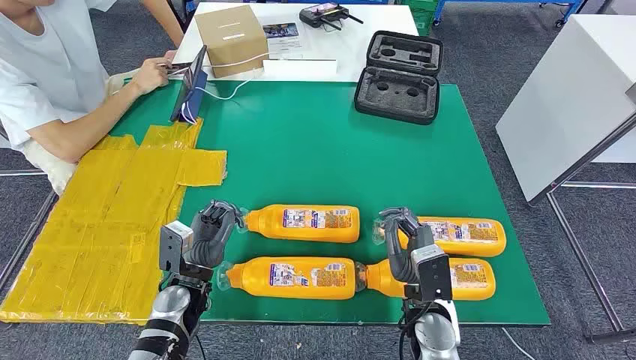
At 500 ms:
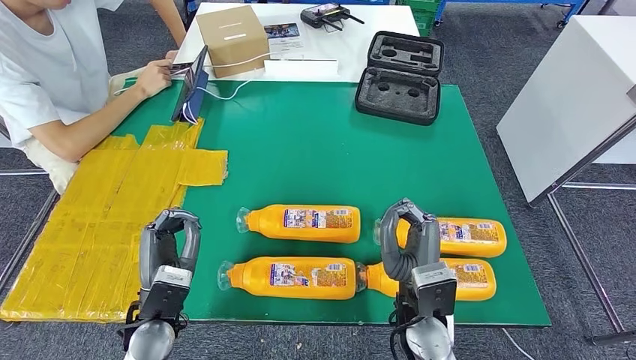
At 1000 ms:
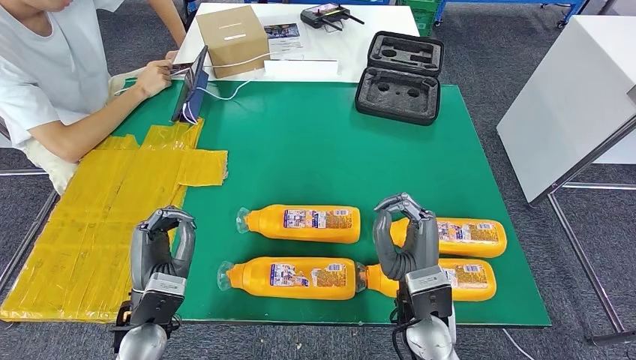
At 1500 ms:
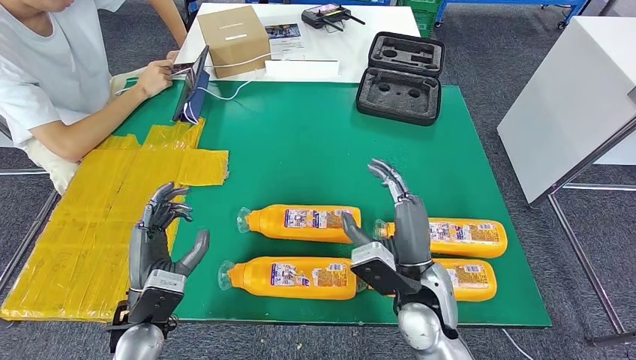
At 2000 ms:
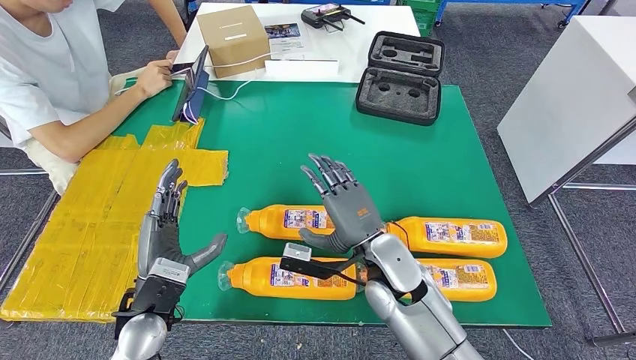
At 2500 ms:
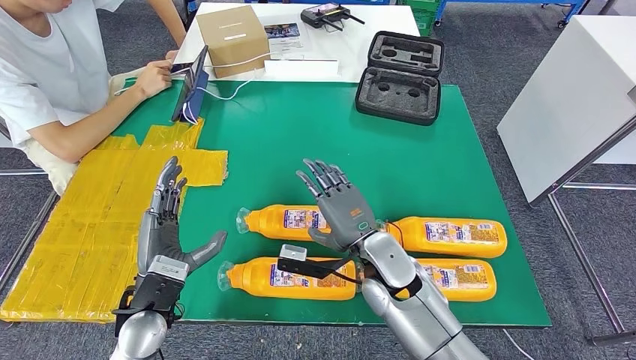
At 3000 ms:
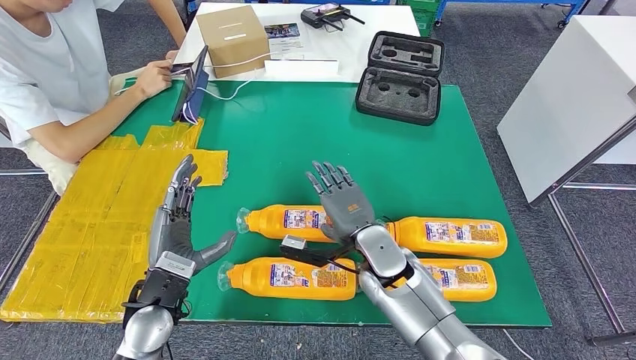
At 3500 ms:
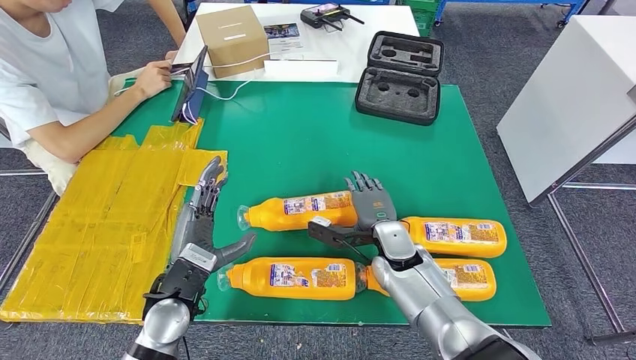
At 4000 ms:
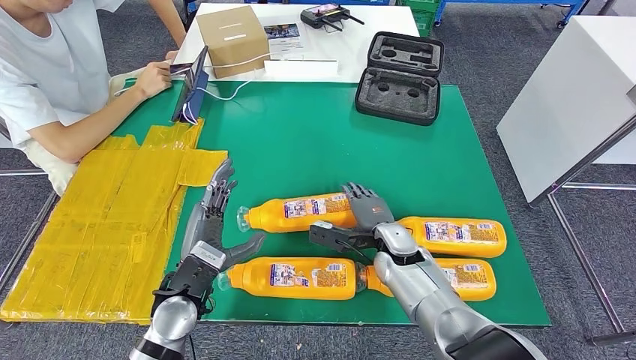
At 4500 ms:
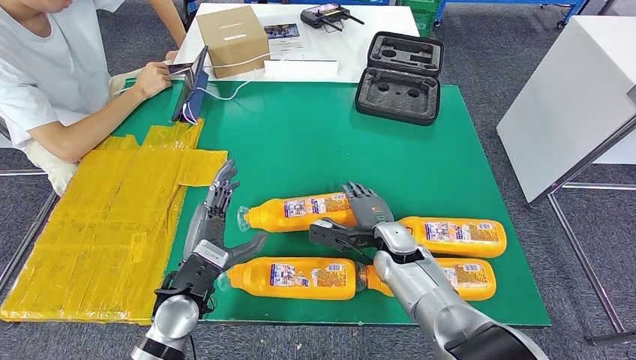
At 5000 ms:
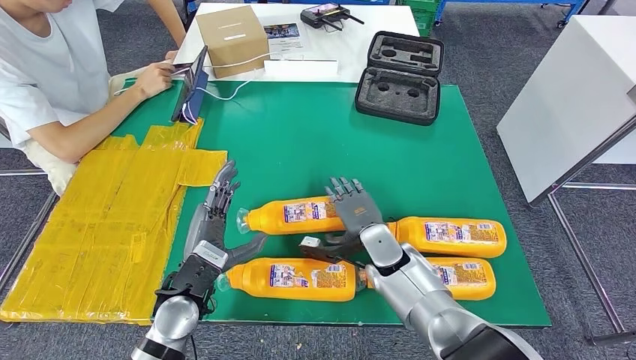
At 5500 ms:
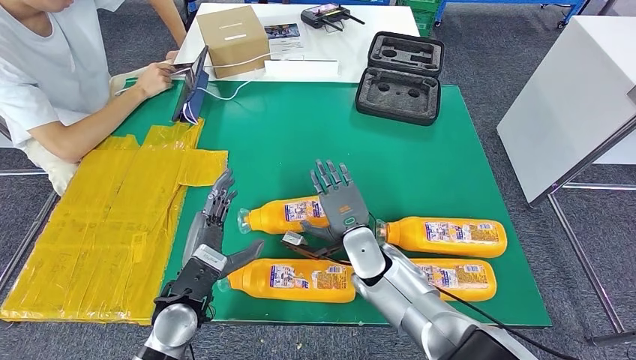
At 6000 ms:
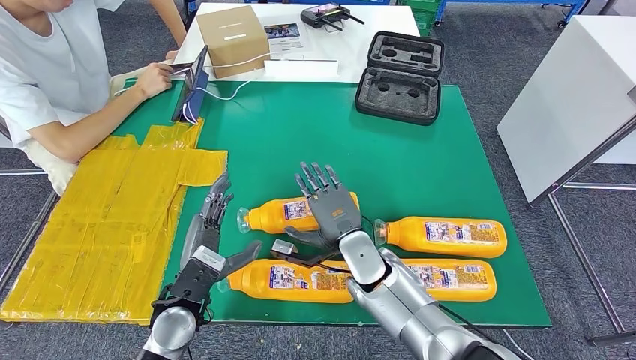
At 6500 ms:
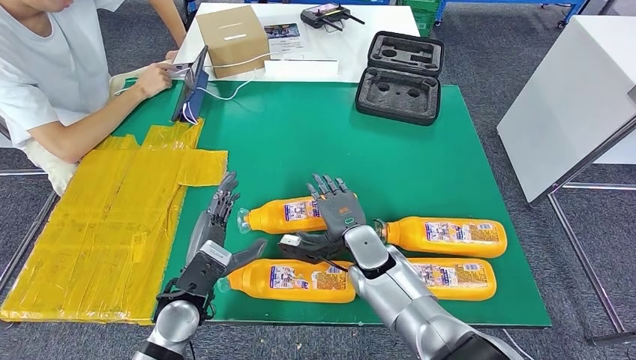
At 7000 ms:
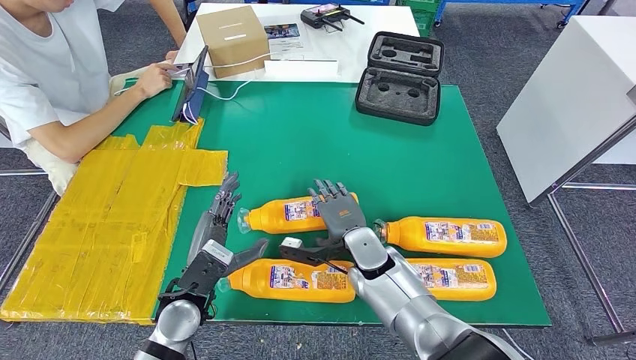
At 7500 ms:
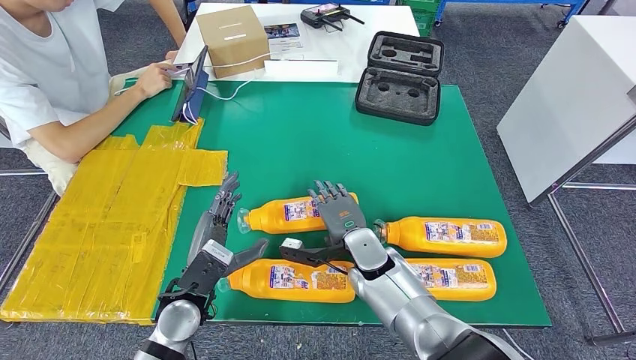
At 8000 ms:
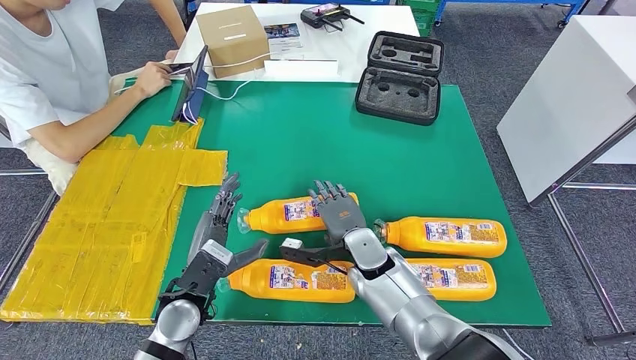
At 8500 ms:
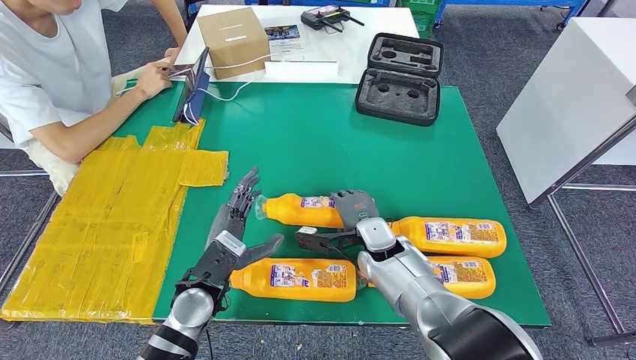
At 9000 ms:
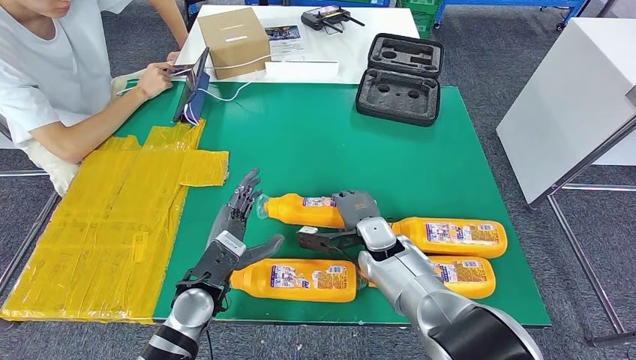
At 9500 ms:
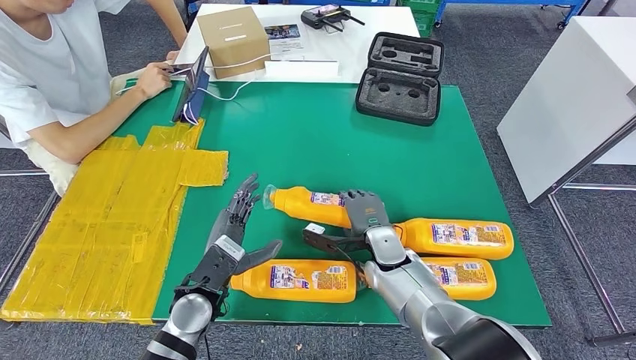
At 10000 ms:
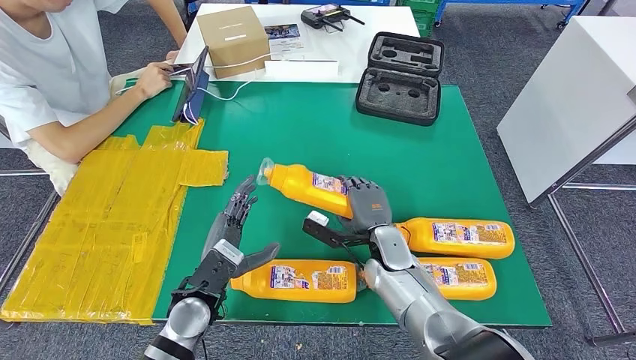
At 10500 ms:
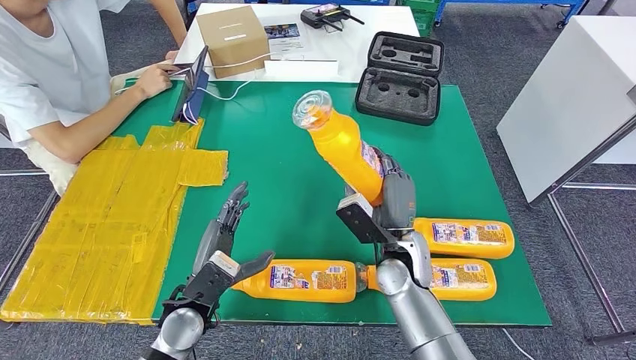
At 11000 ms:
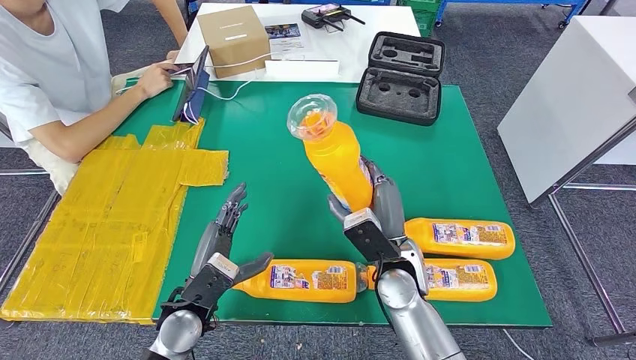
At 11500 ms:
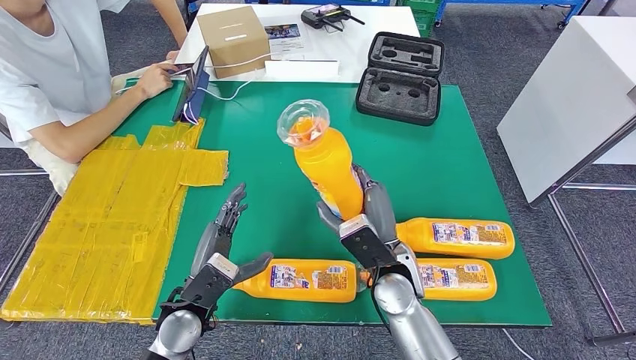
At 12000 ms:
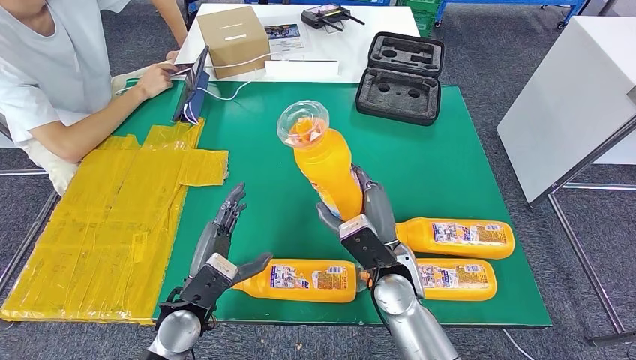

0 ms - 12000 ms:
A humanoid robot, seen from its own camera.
Step, 0 ms - 10500 ms: Take the bottle from the table.
2000 ms - 4000 ms: The right hand shifts about 10 cm downward and forward, while the left hand shifts by approximately 5 cm.
4000 ms - 6000 ms: The right hand goes about 5 cm to the left.
10000 ms - 12000 ms: The right hand moves upward and backward, approximately 10 cm.

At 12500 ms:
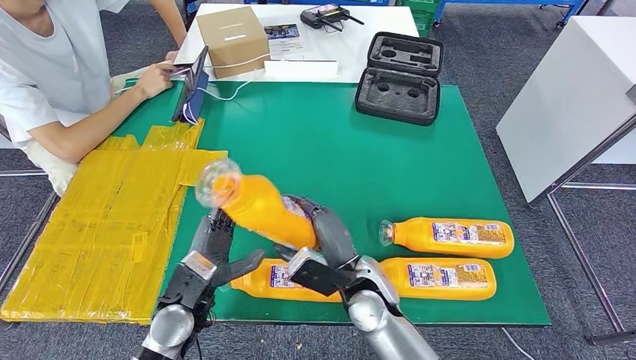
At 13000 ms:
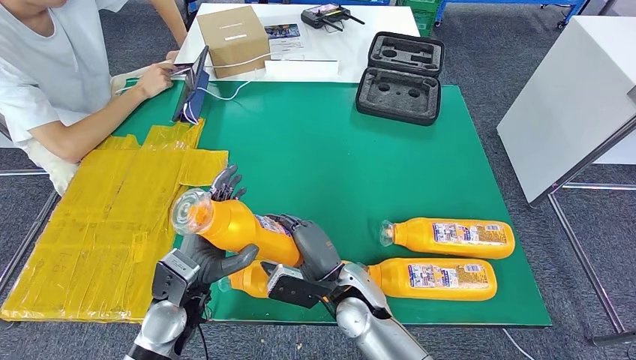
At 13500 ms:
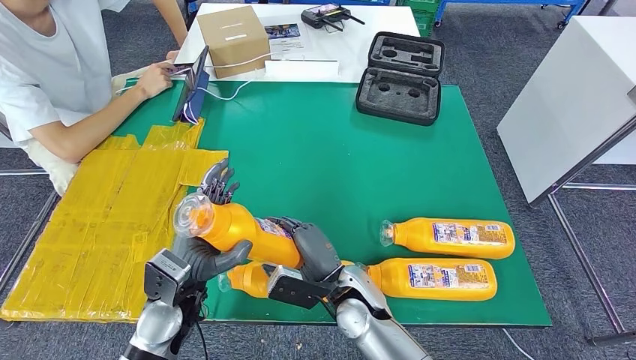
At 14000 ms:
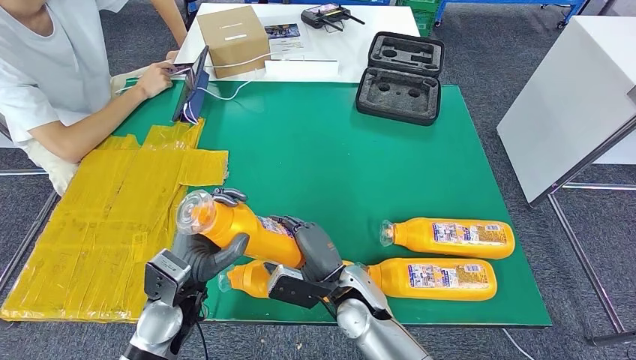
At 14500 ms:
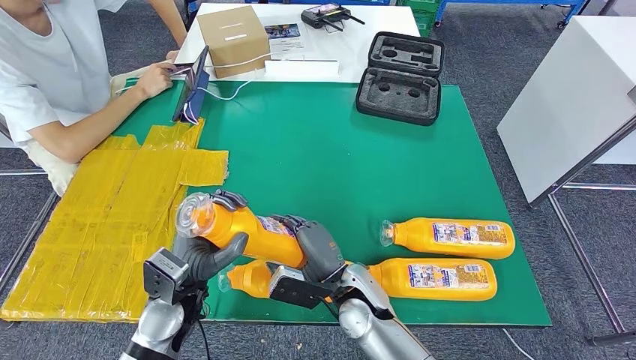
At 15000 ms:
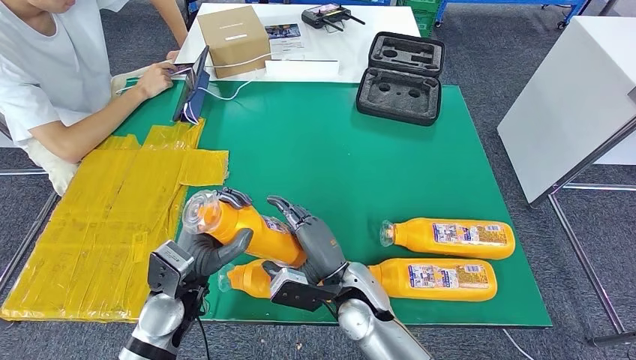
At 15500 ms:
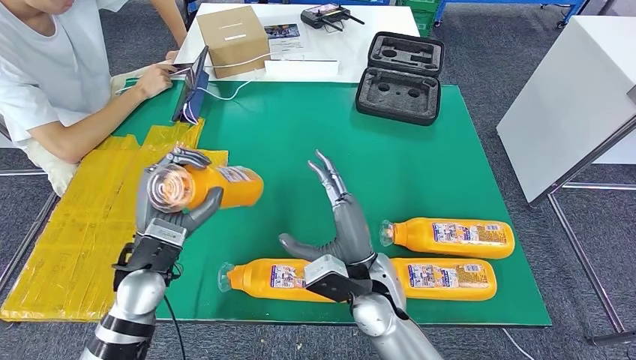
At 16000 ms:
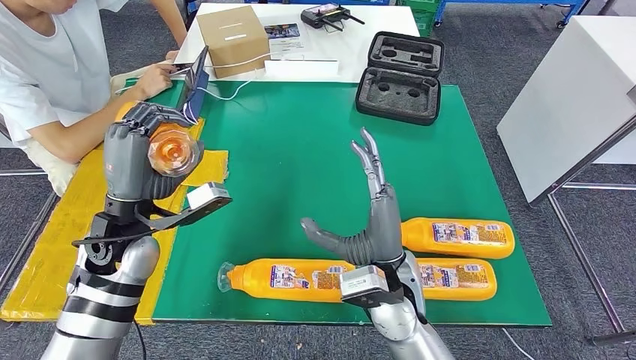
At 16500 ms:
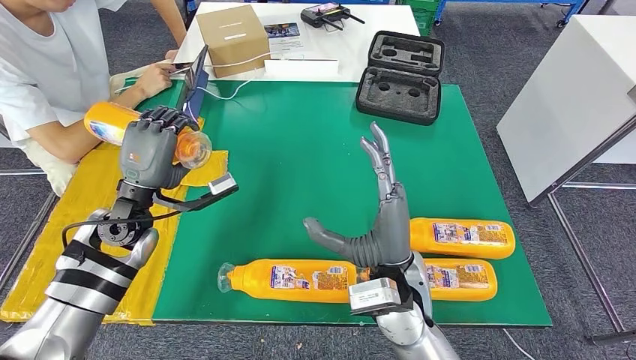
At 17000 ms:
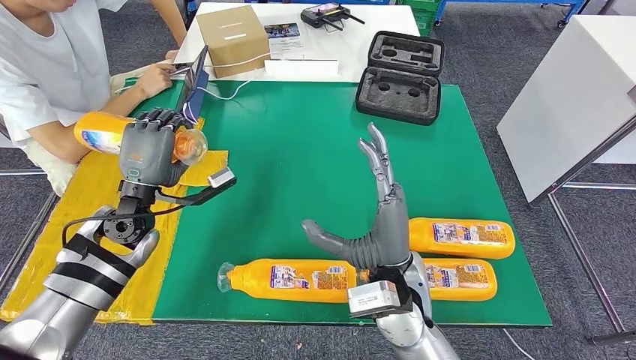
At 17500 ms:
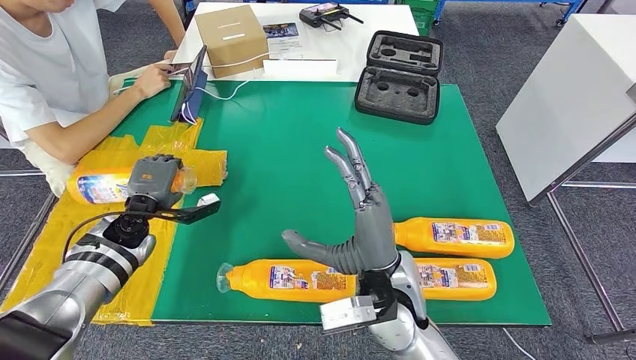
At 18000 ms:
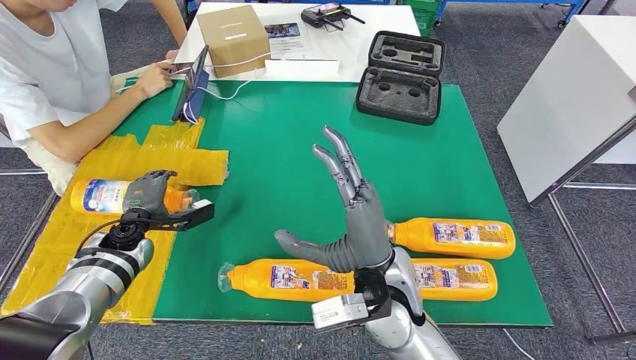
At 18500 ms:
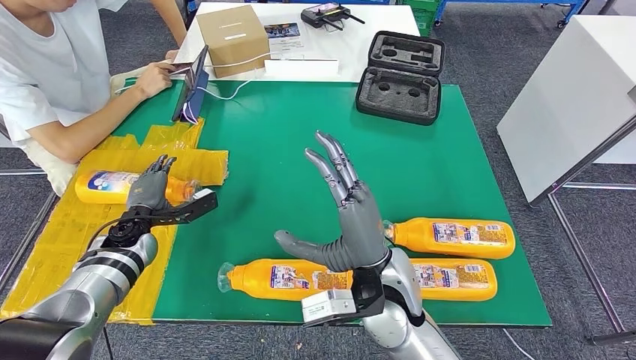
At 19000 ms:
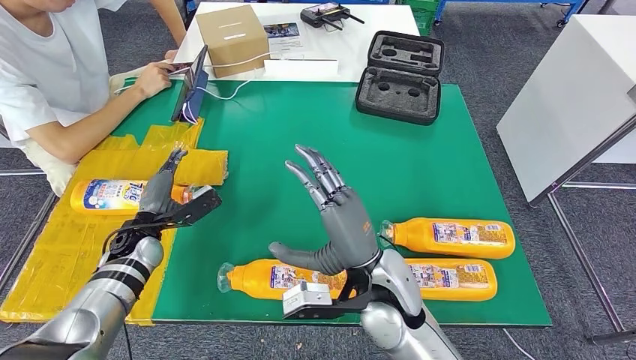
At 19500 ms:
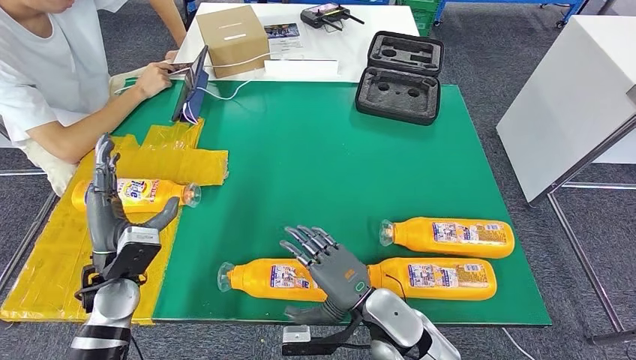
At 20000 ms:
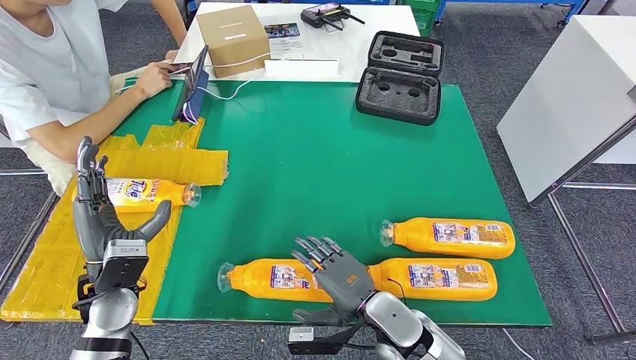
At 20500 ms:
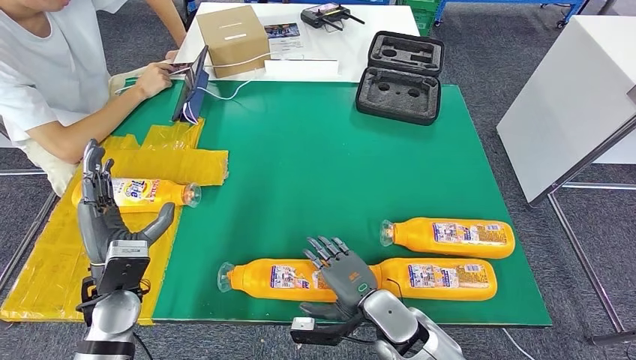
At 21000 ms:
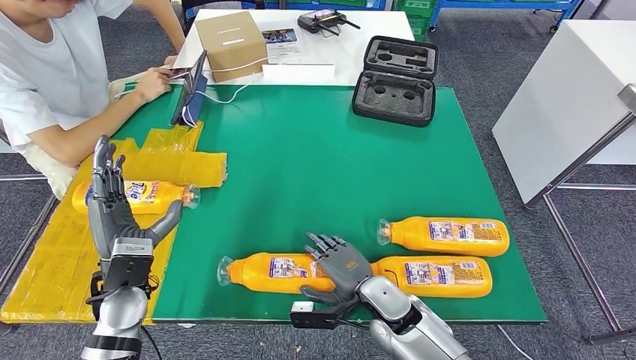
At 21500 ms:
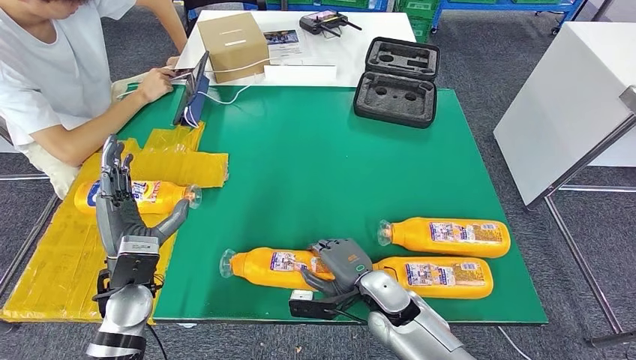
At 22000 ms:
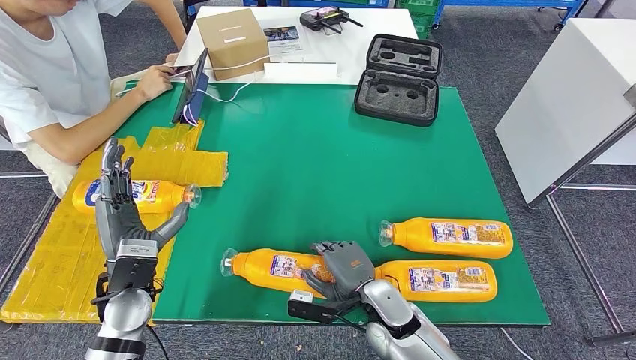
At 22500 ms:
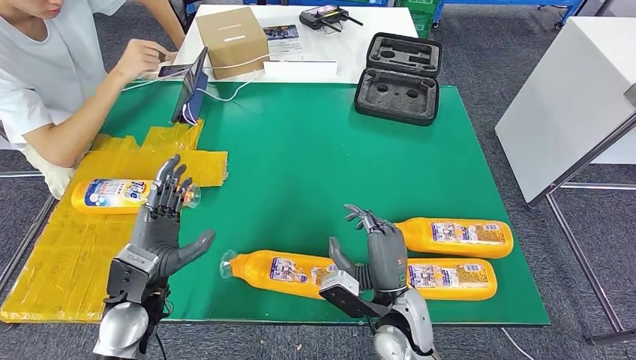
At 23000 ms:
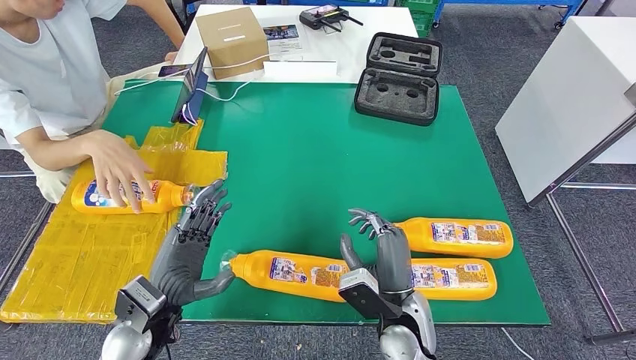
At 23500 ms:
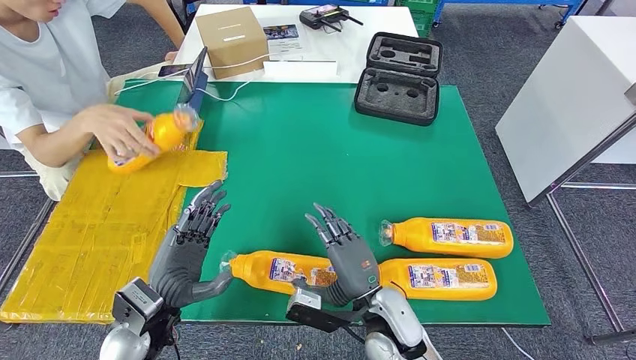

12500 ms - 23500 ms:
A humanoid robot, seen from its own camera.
Step, 12500 ms - 20000 ms: Flip the bottle to face forward.
12500 ms - 14500 ms: The hands make only small movements.
14500 ms - 16000 ms: The right hand goes some 10 cm upward. Meanwhile the left hand heads upward, forward and to the left, covering some 15 cm.
16000 ms - 18000 ms: The left hand goes about 20 cm downward, to the left and forward.
18000 ms - 20000 ms: The left hand shifts roughly 15 cm backward and upward. Meanwhile the right hand goes roughly 15 cm downward.
